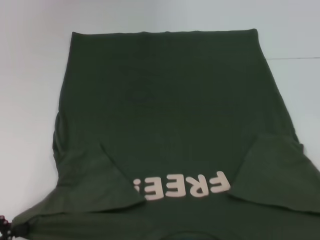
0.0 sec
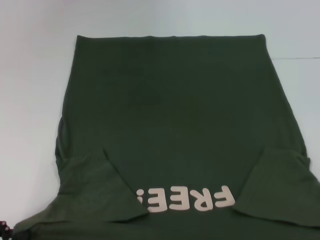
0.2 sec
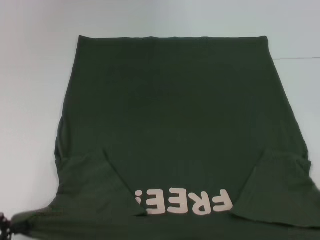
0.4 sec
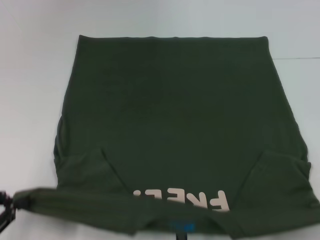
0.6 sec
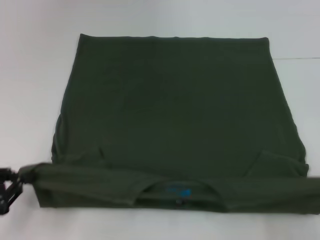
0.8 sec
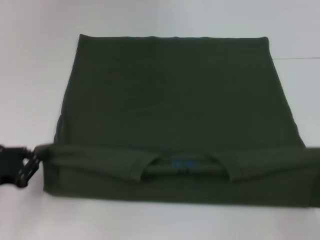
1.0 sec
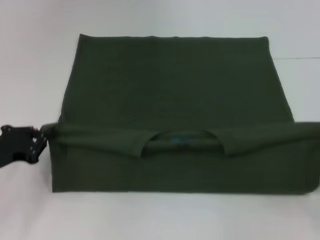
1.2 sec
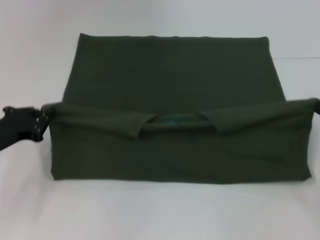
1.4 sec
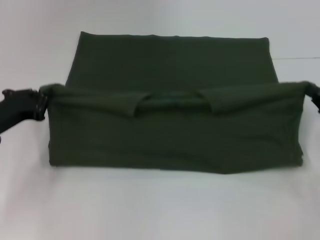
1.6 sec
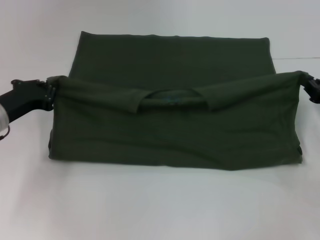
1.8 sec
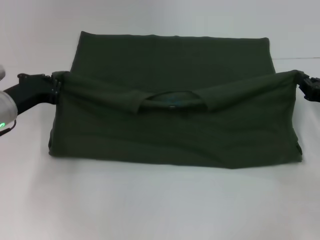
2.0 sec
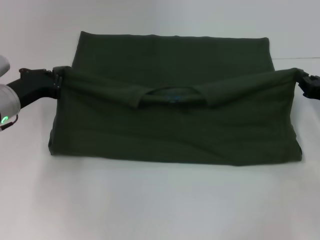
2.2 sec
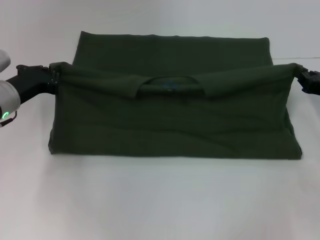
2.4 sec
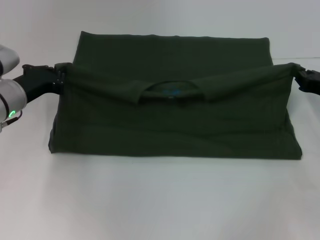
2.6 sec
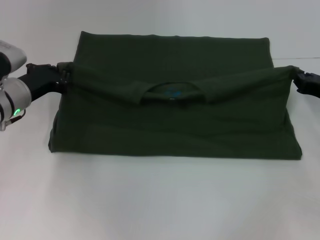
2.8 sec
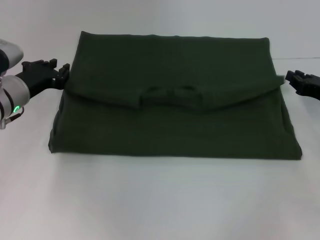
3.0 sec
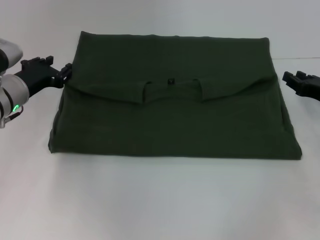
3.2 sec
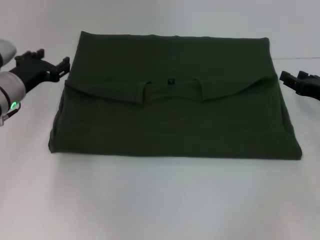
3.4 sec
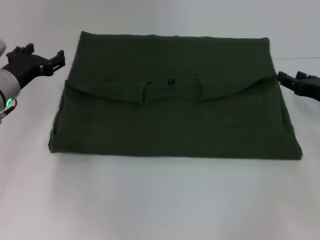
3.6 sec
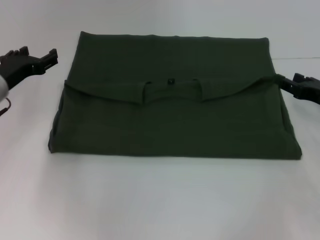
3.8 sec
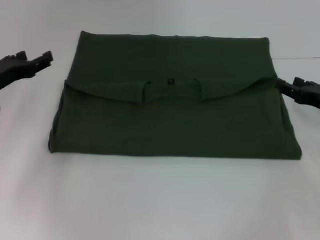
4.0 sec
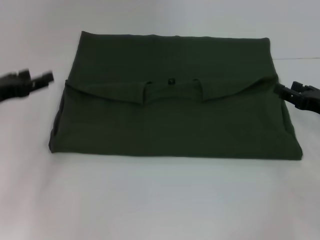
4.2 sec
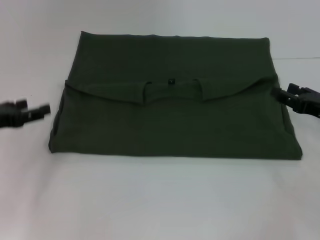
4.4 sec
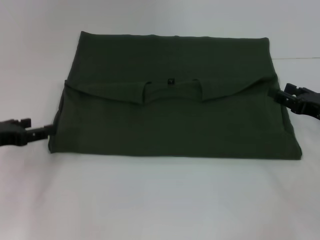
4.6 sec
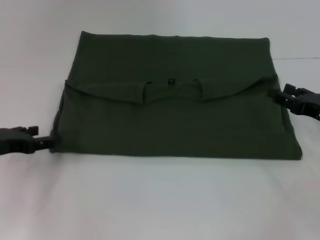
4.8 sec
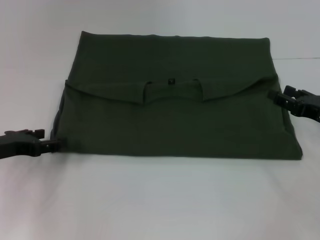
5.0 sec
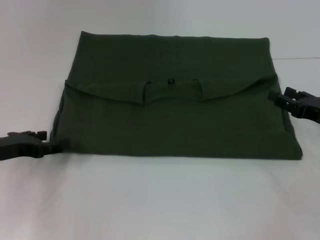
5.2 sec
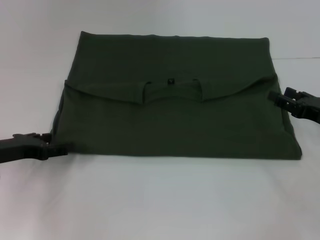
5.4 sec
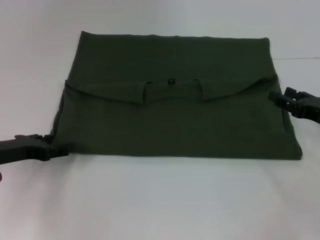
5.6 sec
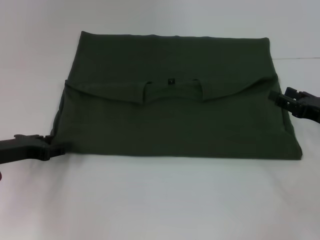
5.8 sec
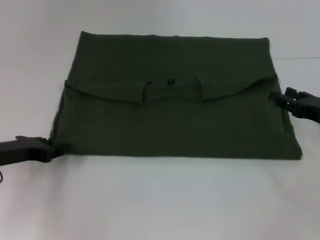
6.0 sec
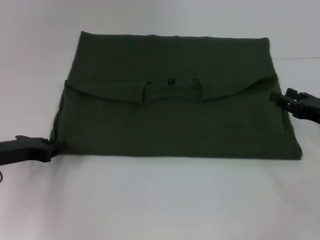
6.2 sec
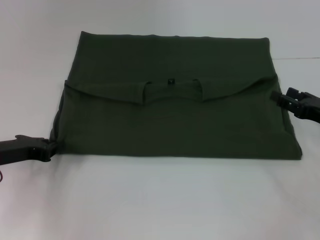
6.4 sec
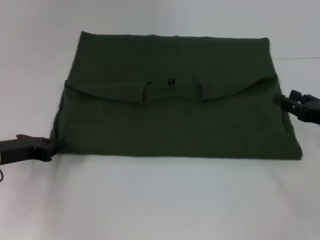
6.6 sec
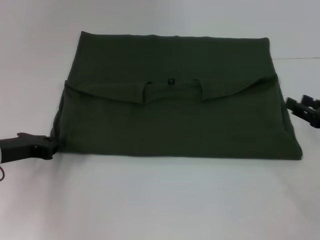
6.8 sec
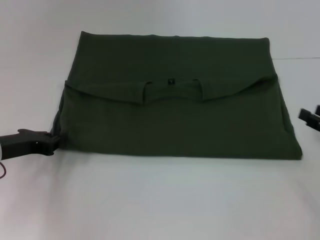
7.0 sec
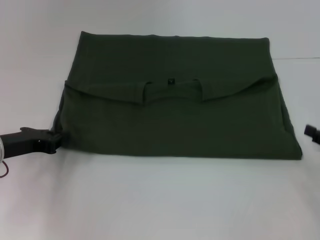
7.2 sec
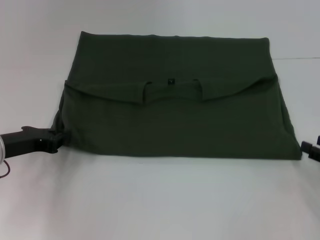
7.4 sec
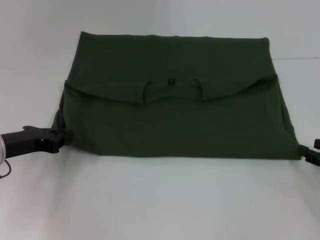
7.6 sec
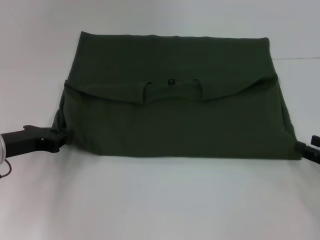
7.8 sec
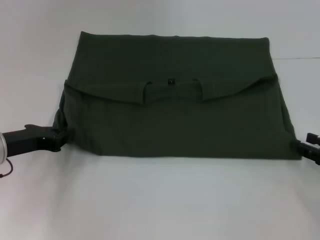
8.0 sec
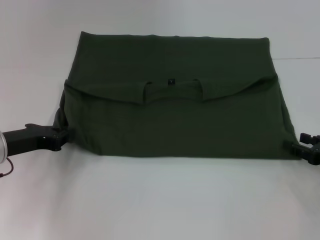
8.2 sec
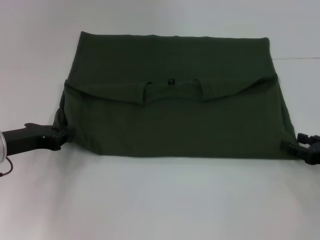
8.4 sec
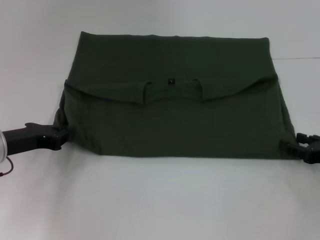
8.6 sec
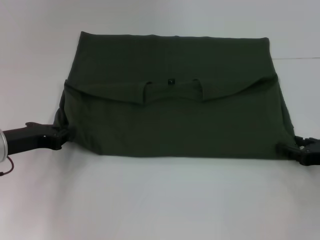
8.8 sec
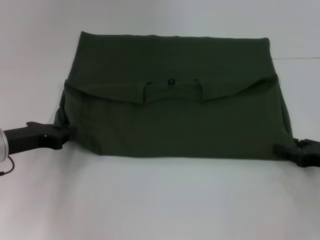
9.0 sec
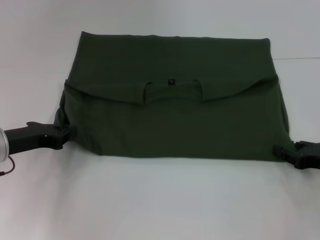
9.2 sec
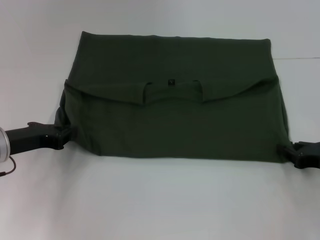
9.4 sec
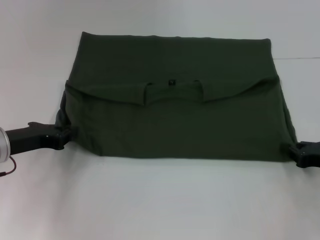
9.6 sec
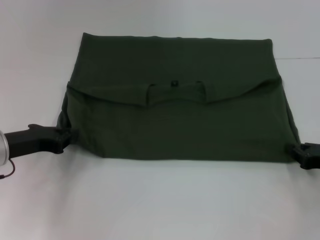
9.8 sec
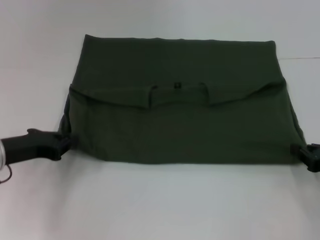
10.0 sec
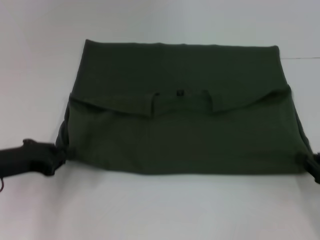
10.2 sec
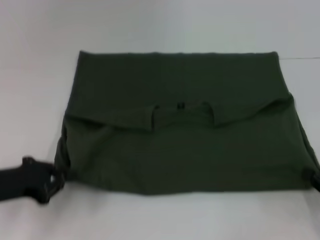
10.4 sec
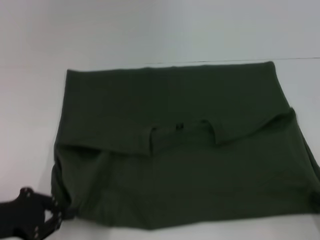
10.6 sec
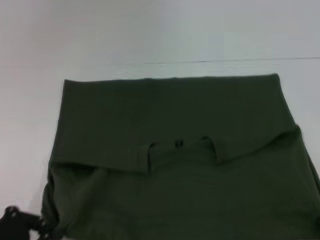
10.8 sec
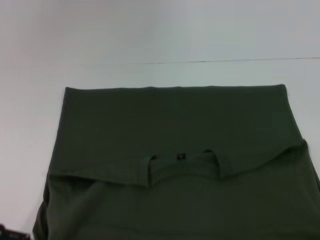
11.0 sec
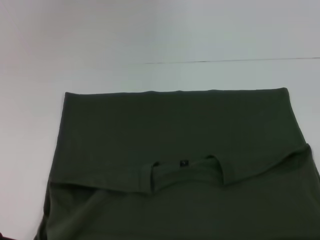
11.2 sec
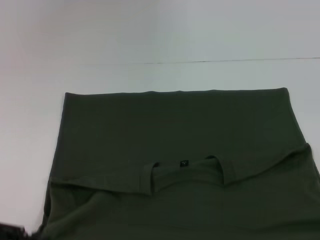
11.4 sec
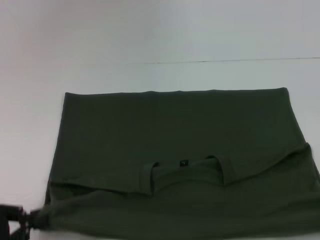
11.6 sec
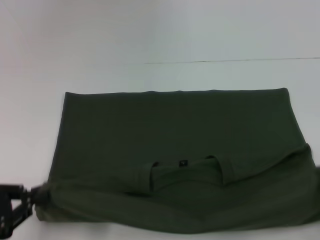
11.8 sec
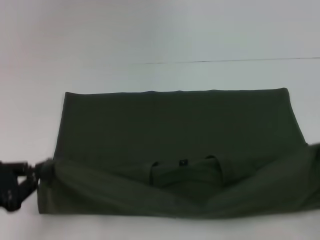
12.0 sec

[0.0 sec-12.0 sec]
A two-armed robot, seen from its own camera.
Step, 0.0 sec to 3.2 sec: Fold the clothes with your left hand.
Step, 0.0 sec to 3.2 sec: Fold the clothes with your right hand.
Step, 3.4 sec to 10.8 sec: Pull the clothes with your left hand.
Step, 3.4 sec to 10.8 sec: Pull the clothes with your right hand.
0.0 sec to 1.6 sec: The two grippers go some 20 cm forward.
1.6 sec to 3.0 sec: Both grippers travel together forward, approximately 5 cm.
3.0 sec to 4.4 sec: The left gripper is displaced to the left and backward by approximately 10 cm, and opens up, while the right gripper opens up.
4.4 sec to 6.0 sec: The left gripper shifts by approximately 5 cm.
6.0 sec to 7.6 sec: The right gripper moves backward, some 5 cm. The left gripper closes its fingers.
7.6 sec to 9.0 sec: The grippers stay close to where they were, moving slightly.
9.0 sec to 10.4 sec: The two grippers go some 5 cm backward. The right gripper closes its fingers.
10.4 sec to 12.0 sec: The right gripper travels upward by roughly 5 cm, and goes backward and returns, about 15 cm each way.

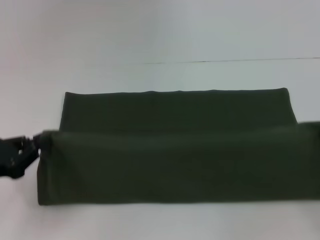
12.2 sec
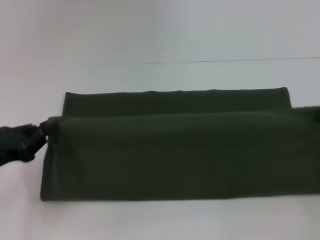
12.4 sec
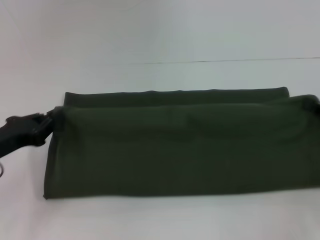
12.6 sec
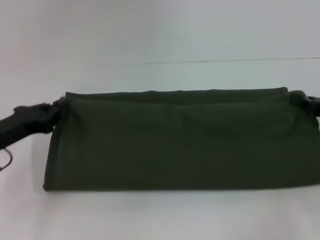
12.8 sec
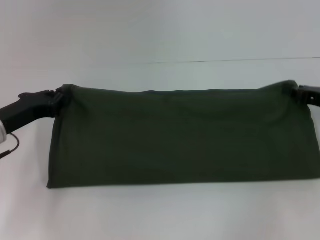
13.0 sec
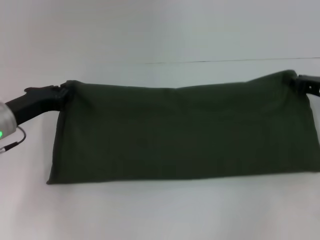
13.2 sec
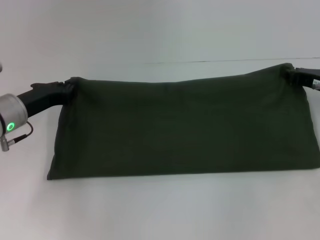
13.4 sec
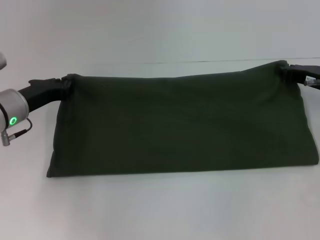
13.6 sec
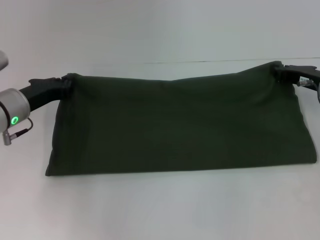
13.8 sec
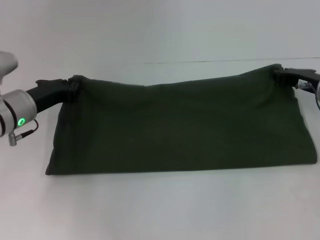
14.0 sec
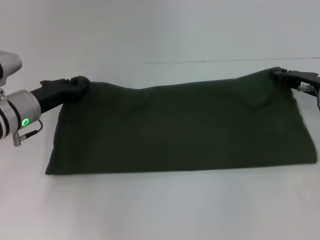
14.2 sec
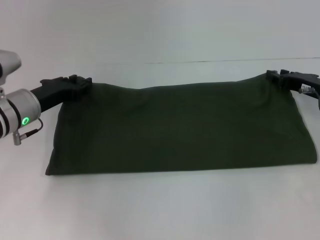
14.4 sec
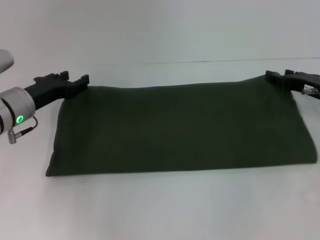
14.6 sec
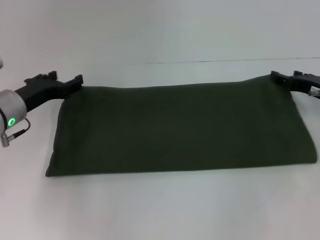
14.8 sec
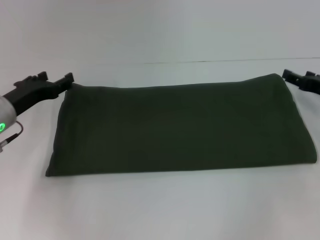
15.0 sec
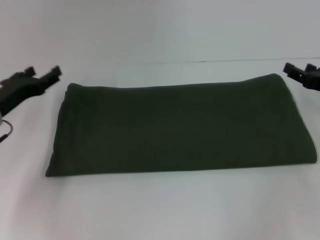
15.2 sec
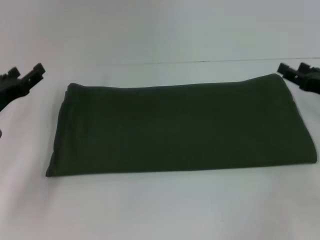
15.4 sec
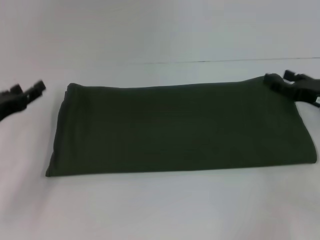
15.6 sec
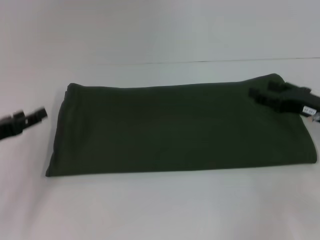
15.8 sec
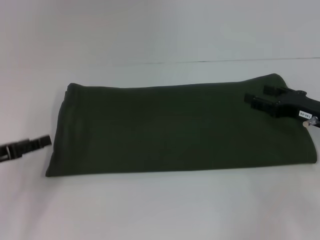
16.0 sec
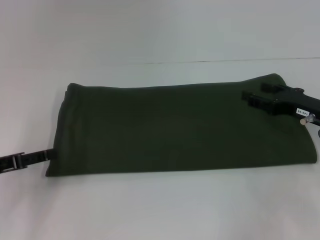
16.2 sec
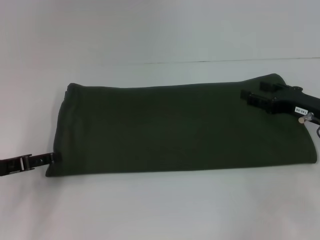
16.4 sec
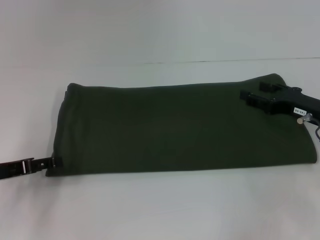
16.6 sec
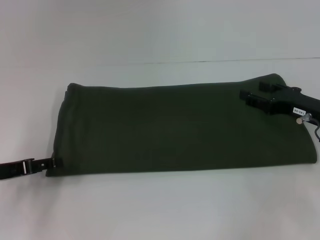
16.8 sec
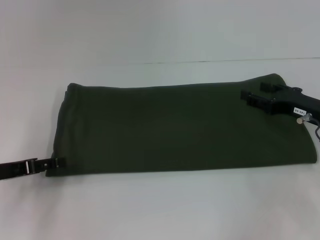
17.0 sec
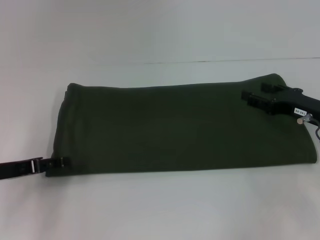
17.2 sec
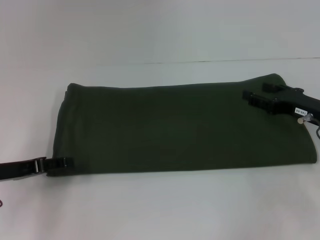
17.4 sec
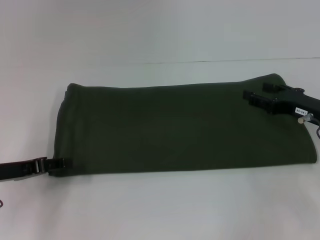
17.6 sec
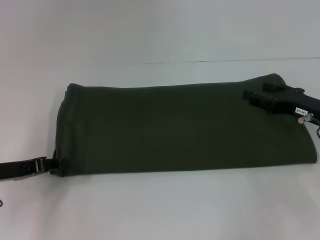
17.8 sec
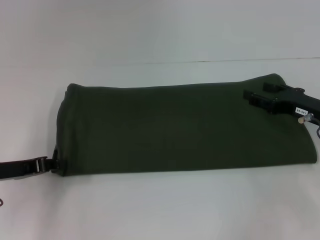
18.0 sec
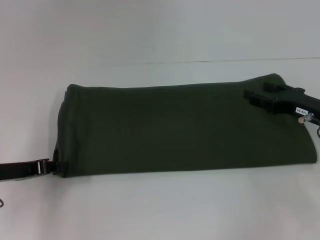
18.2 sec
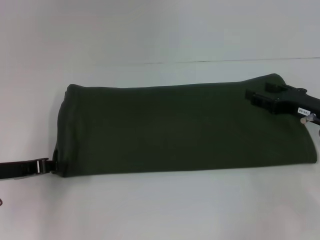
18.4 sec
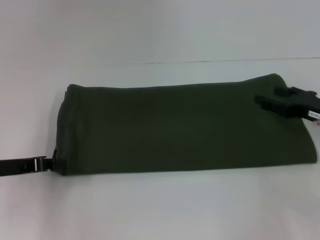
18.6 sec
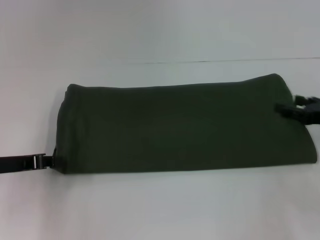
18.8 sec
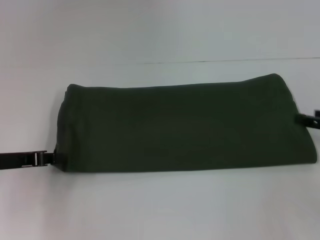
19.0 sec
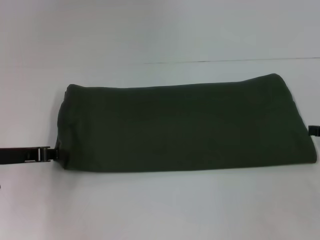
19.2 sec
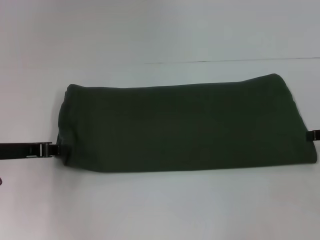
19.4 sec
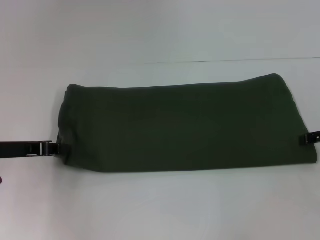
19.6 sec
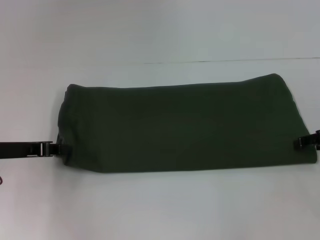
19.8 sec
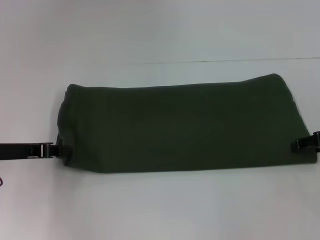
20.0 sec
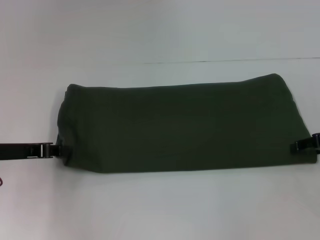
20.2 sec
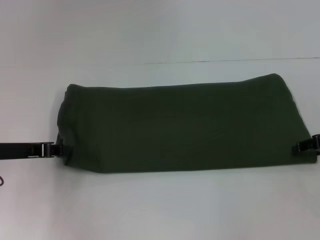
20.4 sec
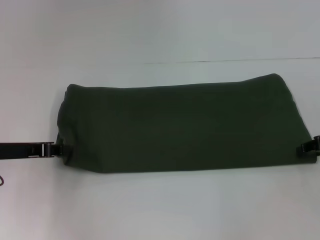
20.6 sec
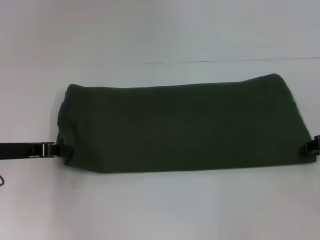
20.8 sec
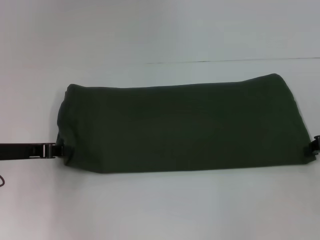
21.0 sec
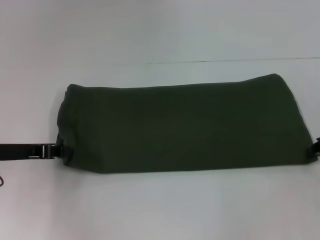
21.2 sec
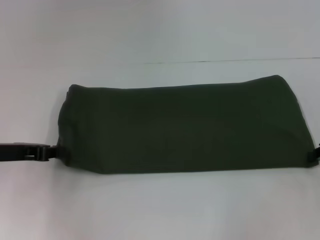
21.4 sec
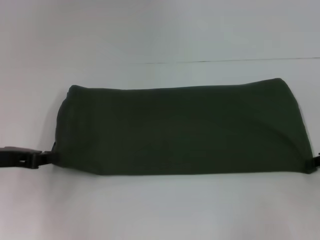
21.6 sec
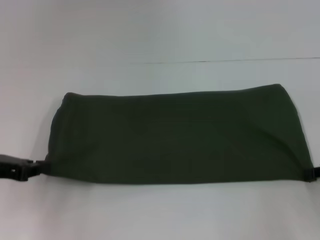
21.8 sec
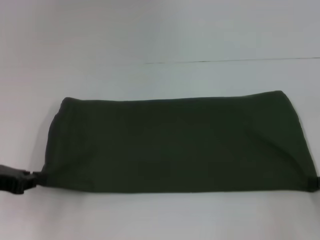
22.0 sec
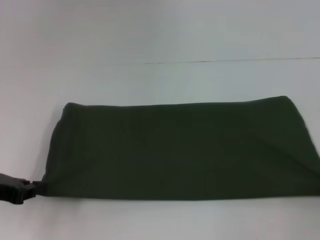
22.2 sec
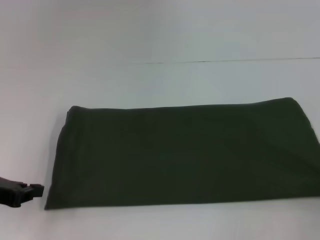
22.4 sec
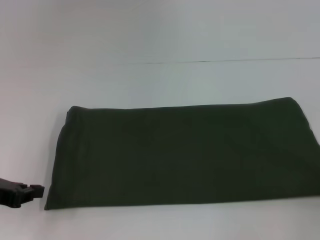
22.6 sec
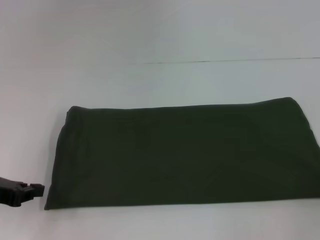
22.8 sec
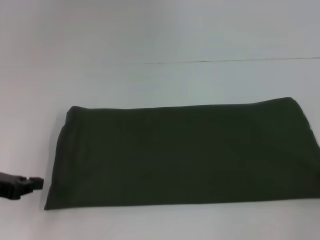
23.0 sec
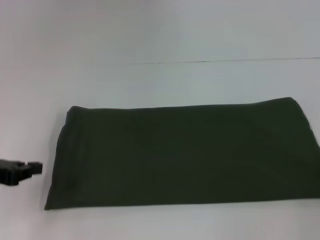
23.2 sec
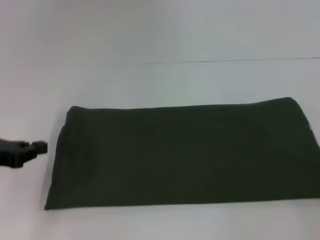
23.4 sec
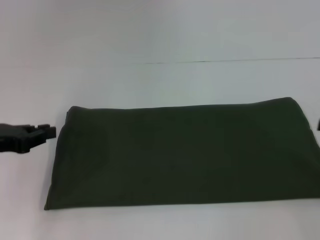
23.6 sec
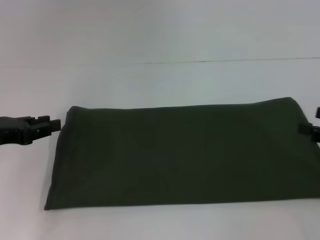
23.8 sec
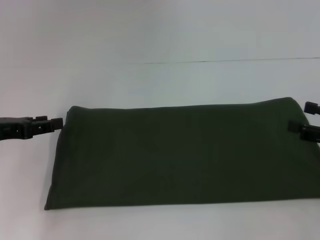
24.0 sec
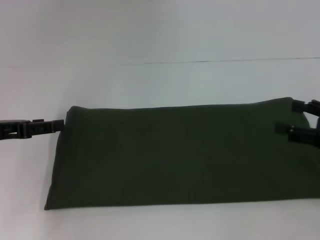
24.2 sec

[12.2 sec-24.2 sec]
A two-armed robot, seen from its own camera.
Step, 12.2 sec to 14.4 sec: Fold the clothes with your right hand.
12.2 sec to 13.8 sec: The right gripper heads forward and to the left, covering approximately 20 cm. Meanwhile the left gripper moves forward and to the right, approximately 15 cm.
13.8 sec to 15.2 sec: The left gripper opens up; the right gripper travels backward by about 5 cm, and opens its fingers.
15.2 sec to 16.6 sec: The left gripper moves backward, about 5 cm.
16.6 sec to 18.2 sec: The left gripper closes its fingers.
18.2 sec to 19.8 sec: The right gripper heads to the right, covering some 5 cm.
21.2 sec to 22.6 sec: The right gripper is displaced backward by approximately 10 cm, while the left gripper shifts roughly 5 cm backward.
22.6 sec to 24.2 sec: The left gripper changes place by roughly 5 cm, and opens. The right gripper moves approximately 5 cm, and opens its fingers.
